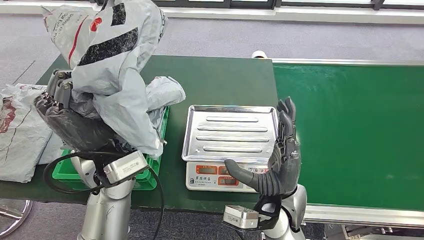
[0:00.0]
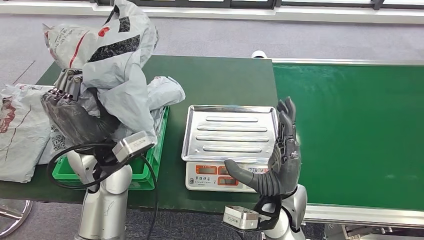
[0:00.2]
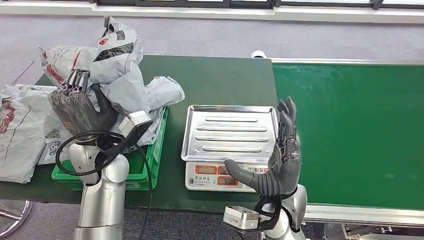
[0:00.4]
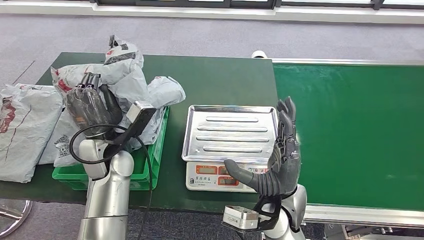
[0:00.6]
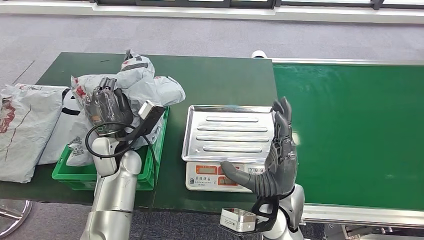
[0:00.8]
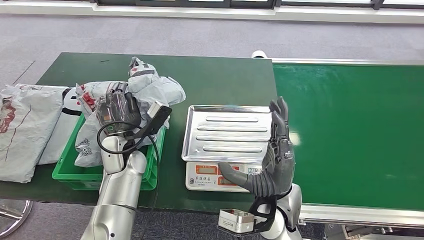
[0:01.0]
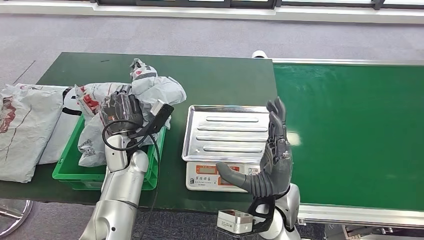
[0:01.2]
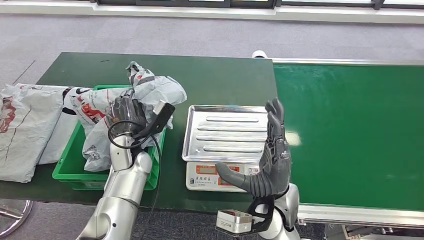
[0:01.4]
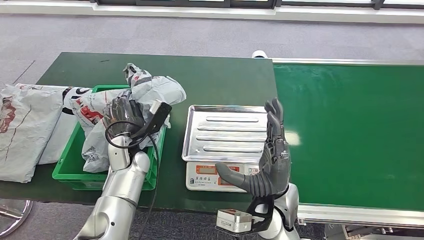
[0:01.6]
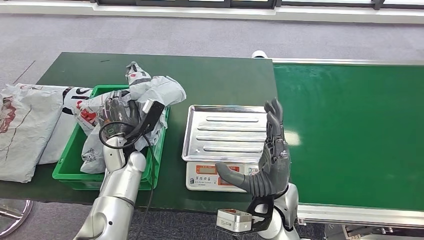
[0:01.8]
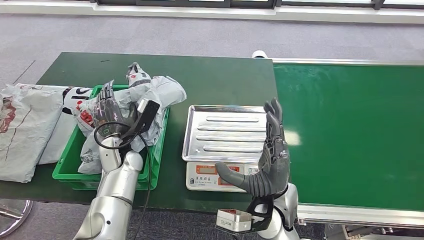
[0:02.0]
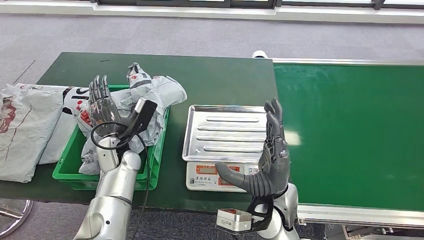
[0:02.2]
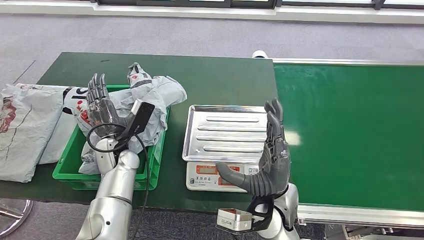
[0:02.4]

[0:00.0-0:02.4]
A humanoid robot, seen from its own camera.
Step, 0:00.8 to 0:02.4: Place the parcel into the delivery box.
0:01.2 to 0:02.4: The hands make only small movements.

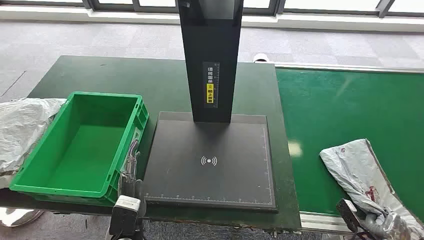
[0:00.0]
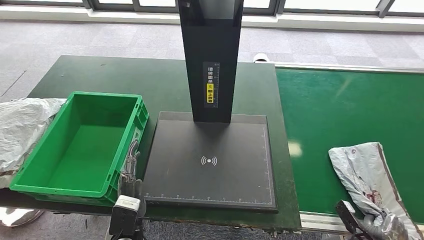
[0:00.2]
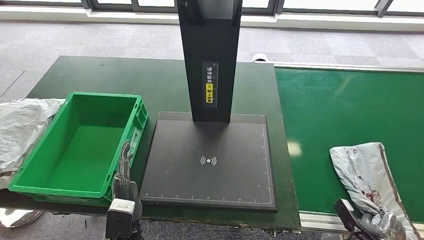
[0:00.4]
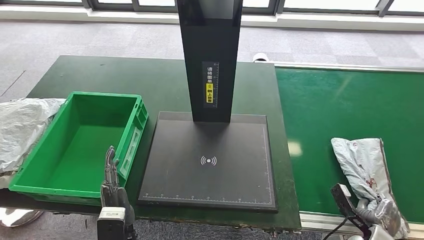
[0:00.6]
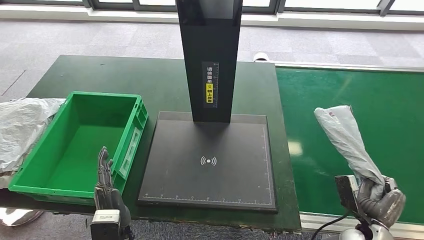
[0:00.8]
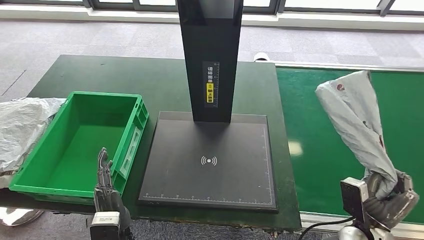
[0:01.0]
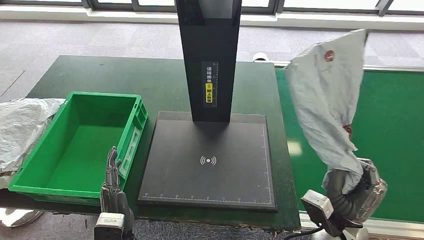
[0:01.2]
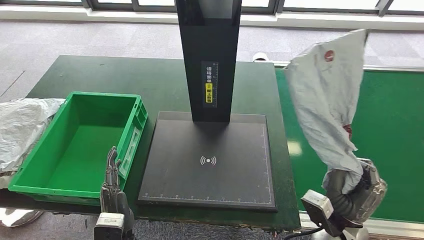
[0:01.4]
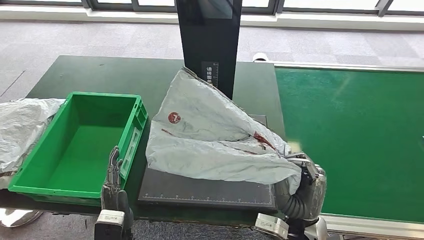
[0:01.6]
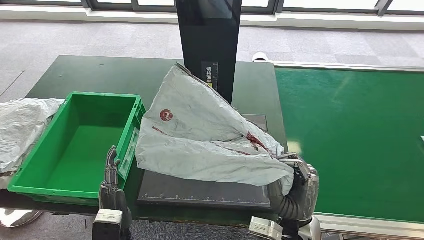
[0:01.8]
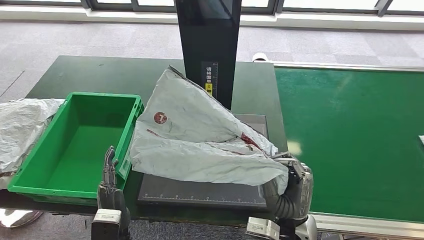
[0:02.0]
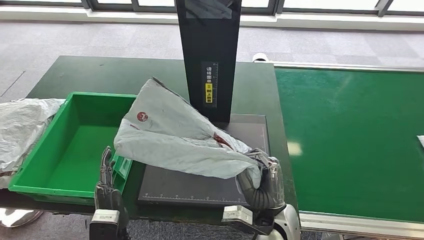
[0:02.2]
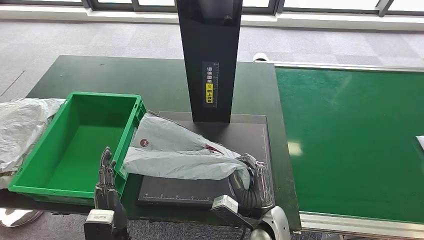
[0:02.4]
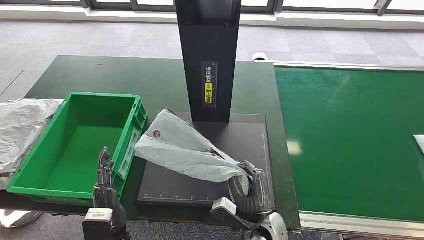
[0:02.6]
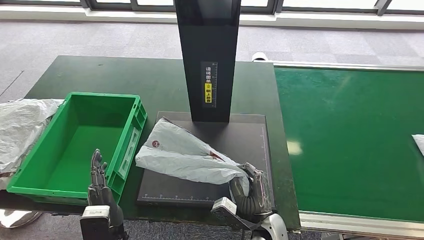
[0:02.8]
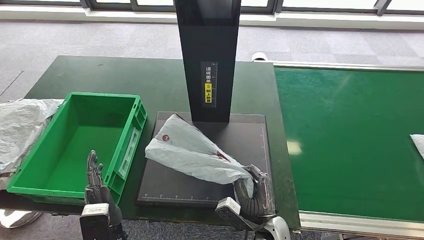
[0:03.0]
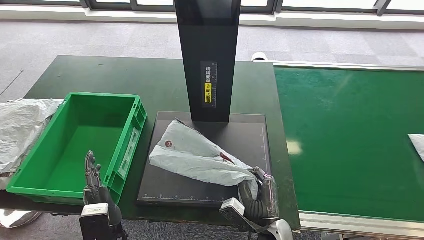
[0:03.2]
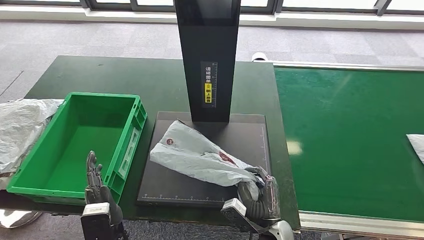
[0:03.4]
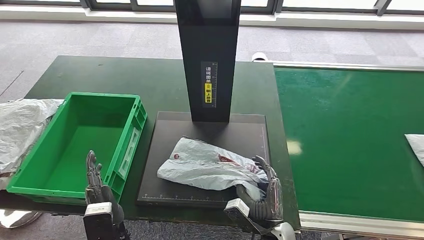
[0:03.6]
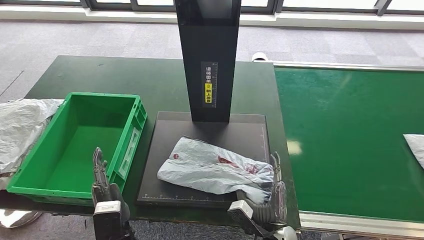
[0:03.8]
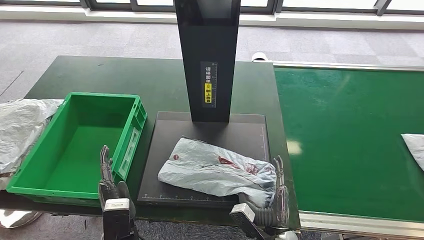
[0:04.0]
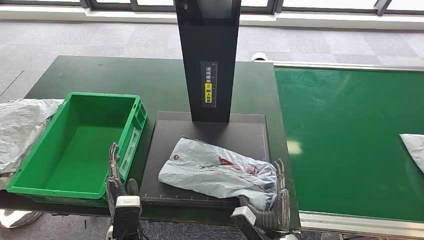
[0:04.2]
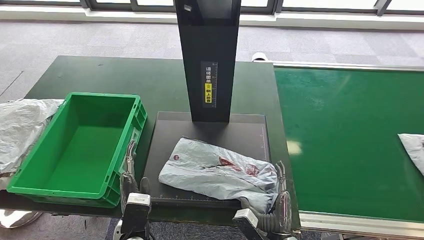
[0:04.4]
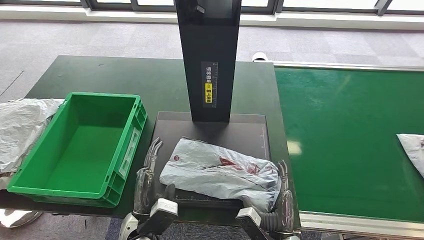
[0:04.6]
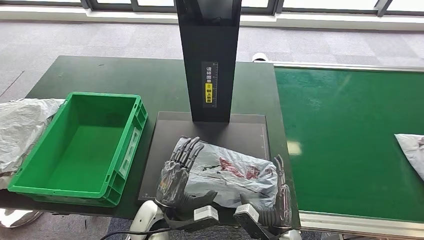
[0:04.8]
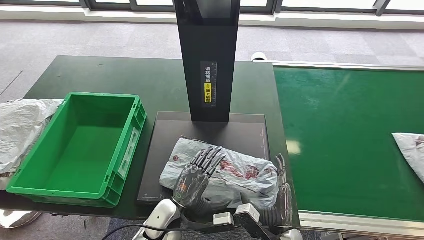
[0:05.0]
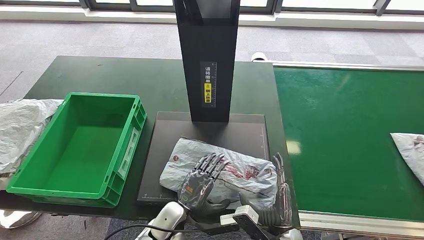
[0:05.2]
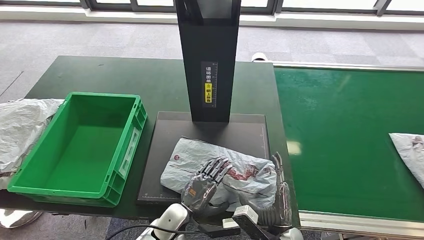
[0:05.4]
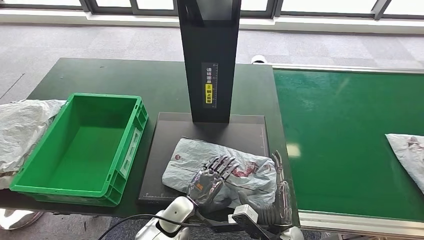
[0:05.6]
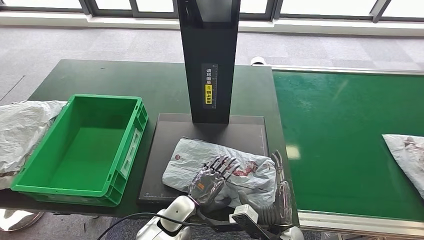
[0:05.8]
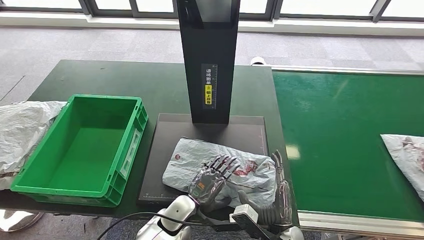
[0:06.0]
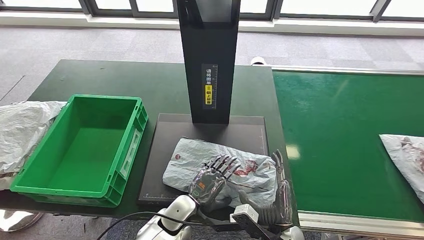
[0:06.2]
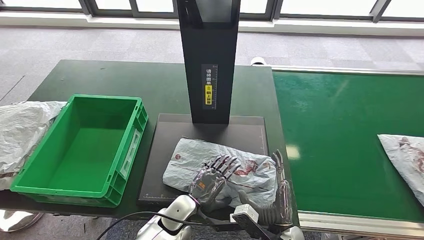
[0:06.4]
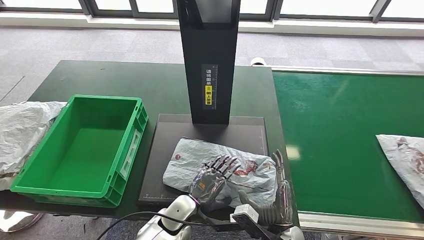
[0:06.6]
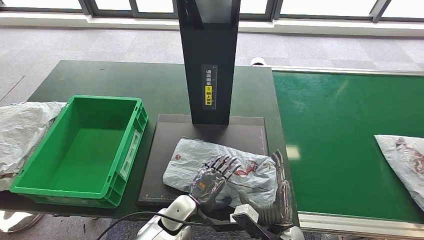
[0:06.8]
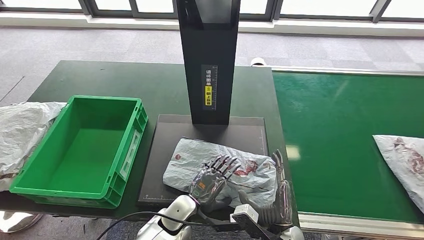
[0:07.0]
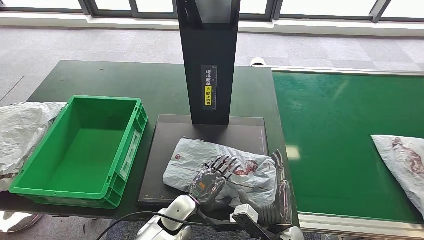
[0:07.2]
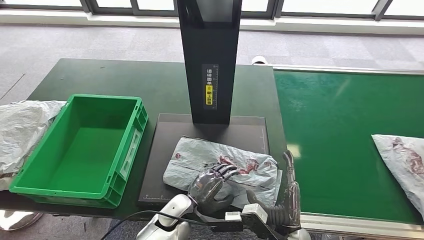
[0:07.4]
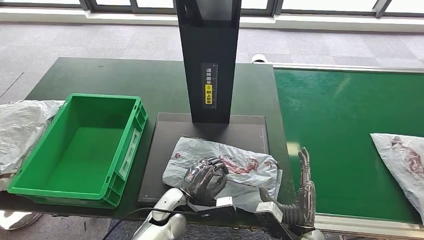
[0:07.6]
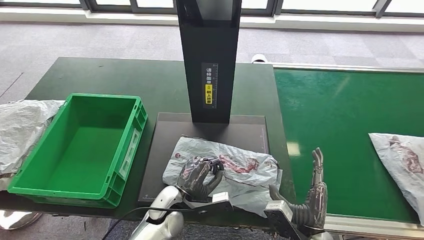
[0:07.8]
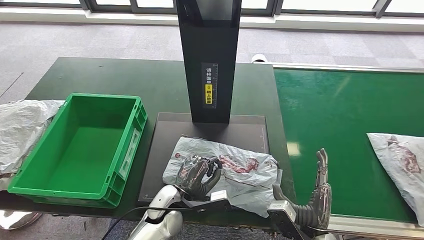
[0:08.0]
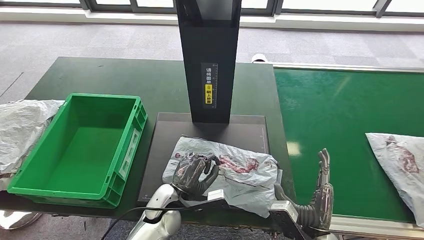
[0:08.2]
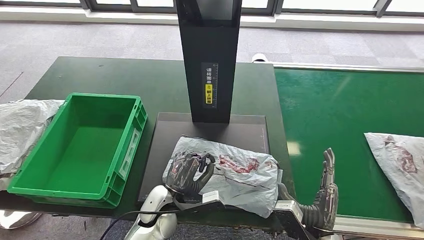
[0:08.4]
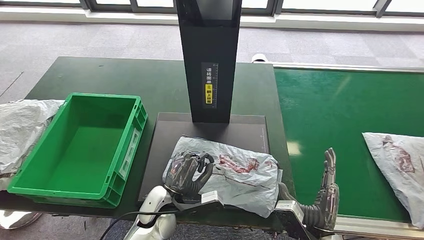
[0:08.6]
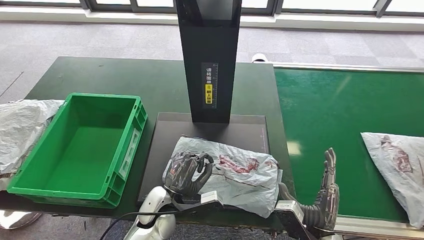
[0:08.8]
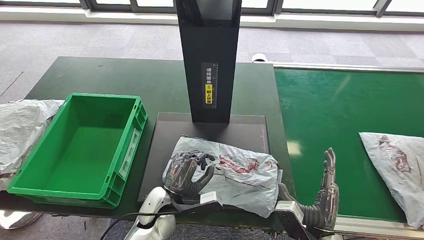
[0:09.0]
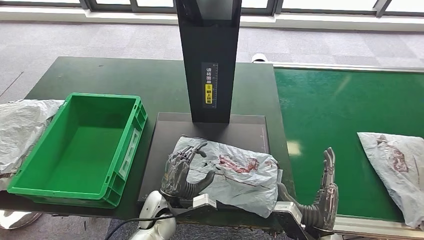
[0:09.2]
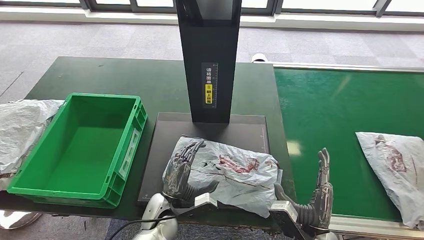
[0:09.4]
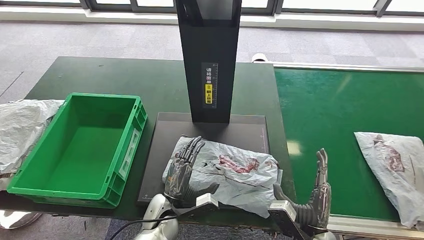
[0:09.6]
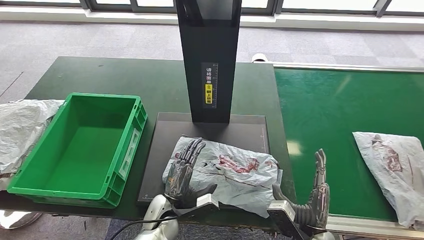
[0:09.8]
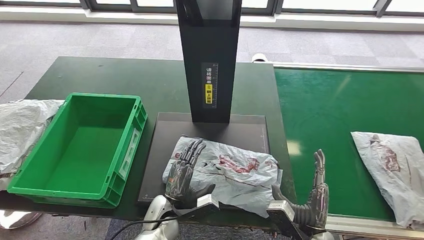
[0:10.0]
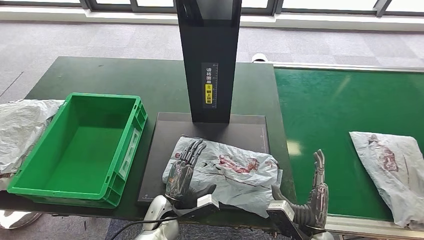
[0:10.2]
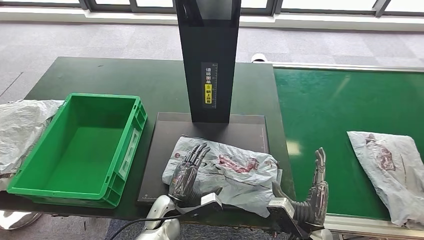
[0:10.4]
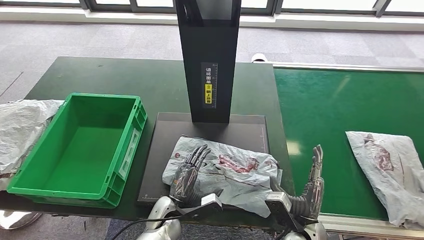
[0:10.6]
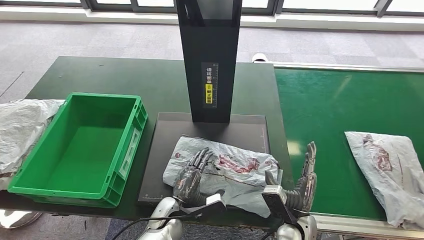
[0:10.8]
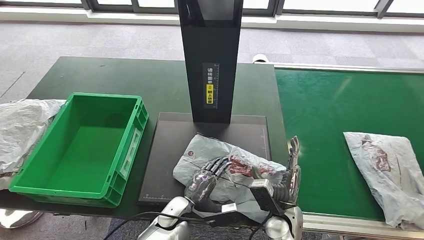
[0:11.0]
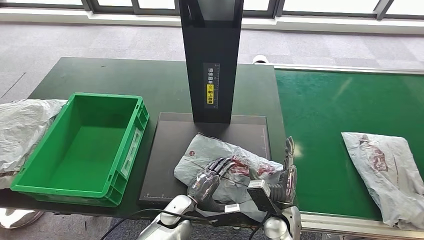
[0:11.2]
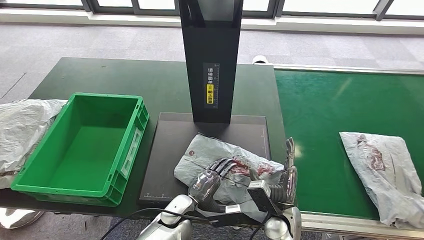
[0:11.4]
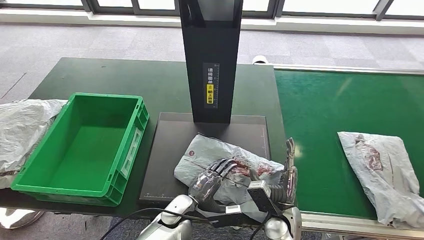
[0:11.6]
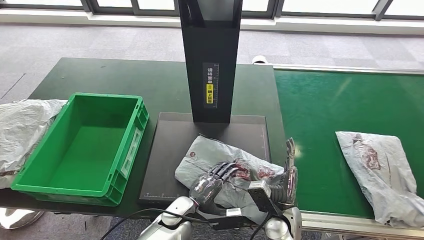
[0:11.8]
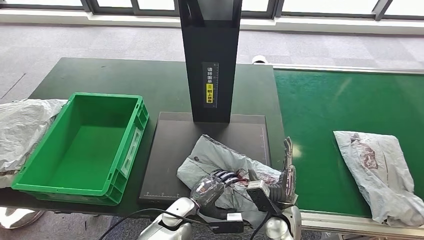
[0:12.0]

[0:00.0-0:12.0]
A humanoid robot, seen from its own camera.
Step, 0:00.0 to 0:01.0: Take the parcel off the conveyor belt.
Step, 0:01.2 to 0:05.0: Place the parcel onto the inbound machine.
0:01.6 to 0:03.0: The right hand moves to the left and downward, roughly 10 cm.
0:03.0 to 0:04.4: The right hand ends up about 5 cm from where it was.
0:07.6 to 0:09.0: The hands move only a little.
0:09.0 to 0:10.4: The left hand shifts by roughly 5 cm.

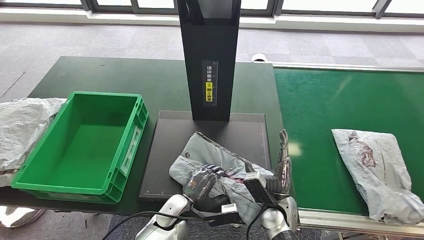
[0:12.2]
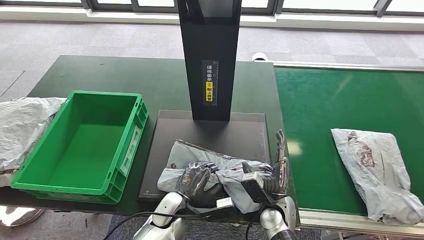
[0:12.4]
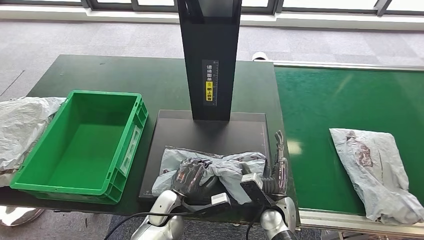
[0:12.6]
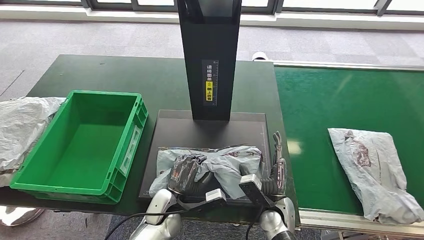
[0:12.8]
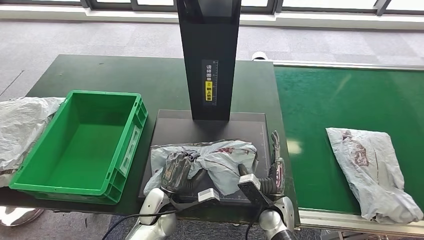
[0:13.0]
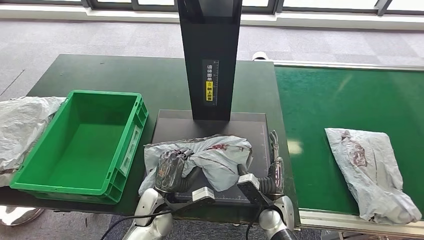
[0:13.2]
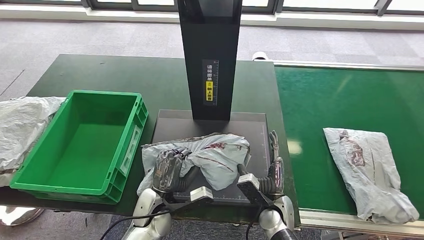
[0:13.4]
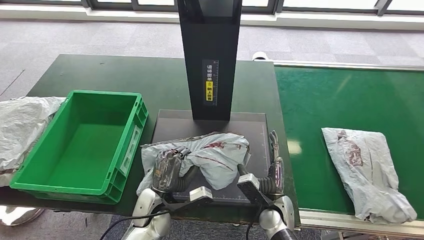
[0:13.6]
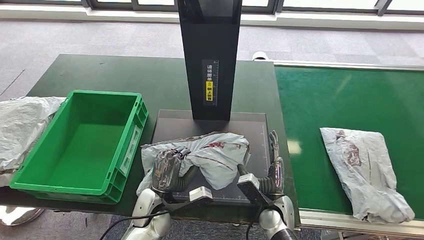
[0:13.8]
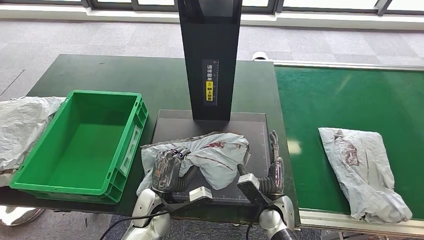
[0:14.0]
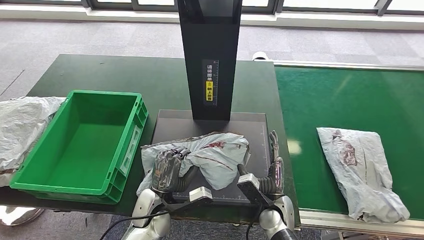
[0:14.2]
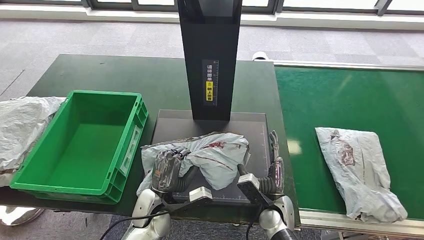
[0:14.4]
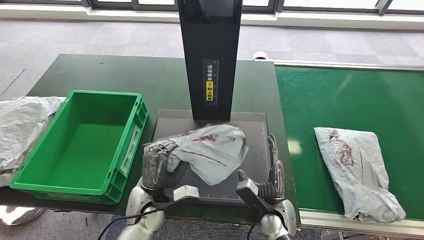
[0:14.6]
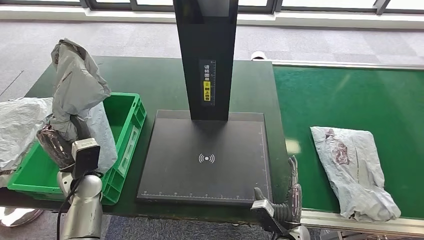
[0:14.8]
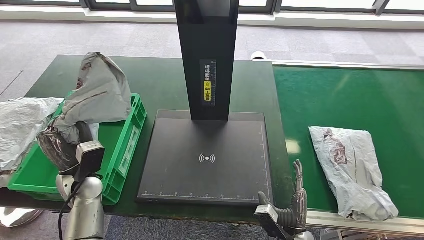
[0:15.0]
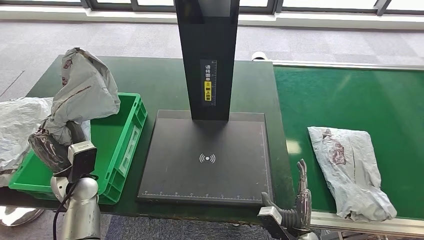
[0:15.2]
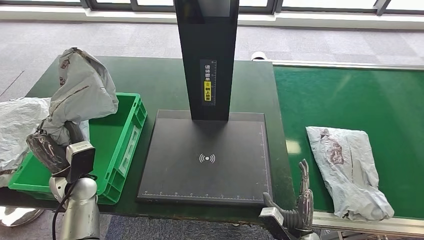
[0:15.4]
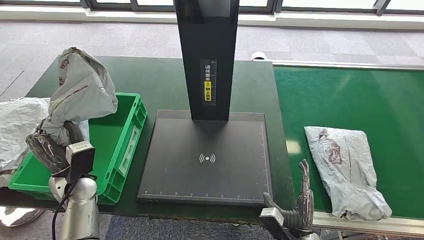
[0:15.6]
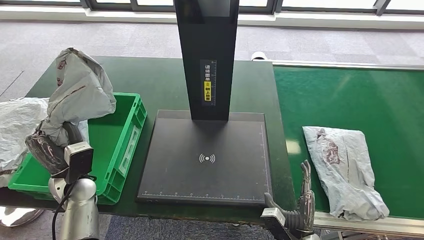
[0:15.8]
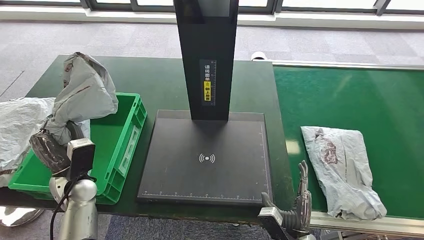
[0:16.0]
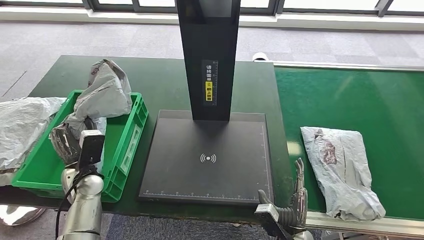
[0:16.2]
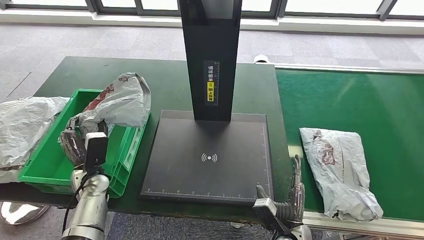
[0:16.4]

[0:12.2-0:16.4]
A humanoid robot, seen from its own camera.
Step, 0:12.2 to 0:14.6: Pick up the parcel from the inbound machine.
